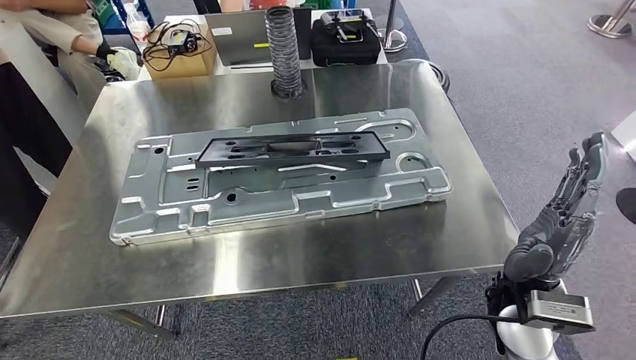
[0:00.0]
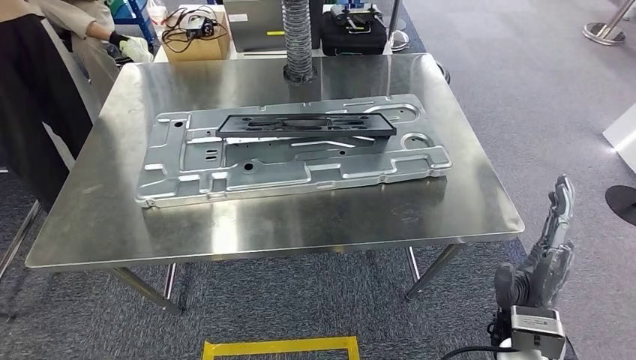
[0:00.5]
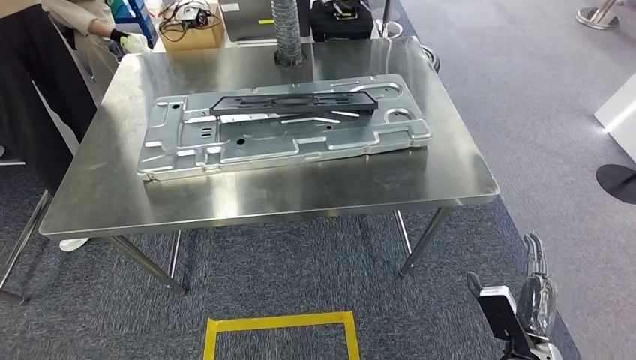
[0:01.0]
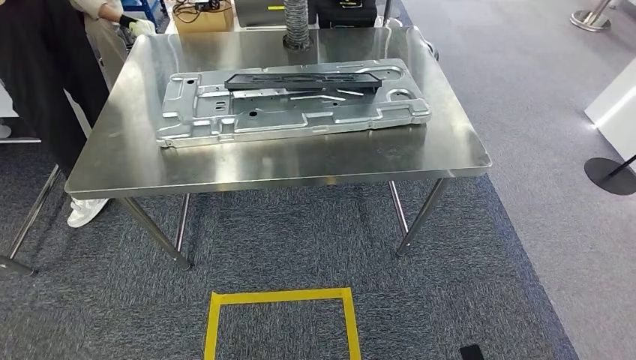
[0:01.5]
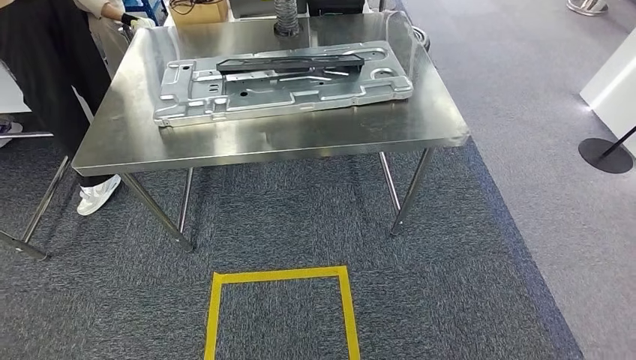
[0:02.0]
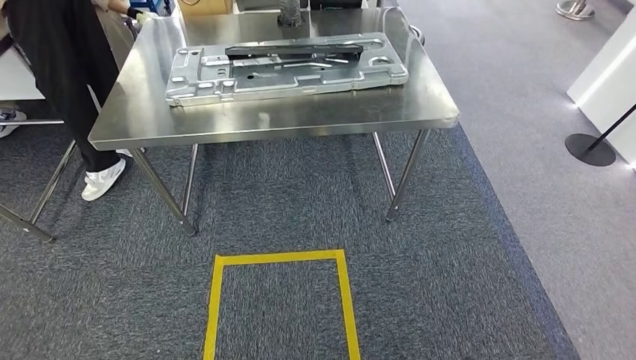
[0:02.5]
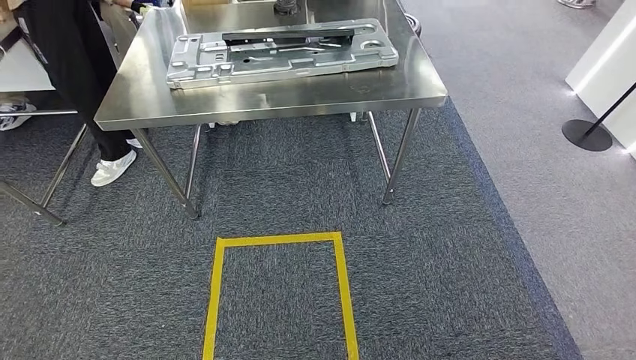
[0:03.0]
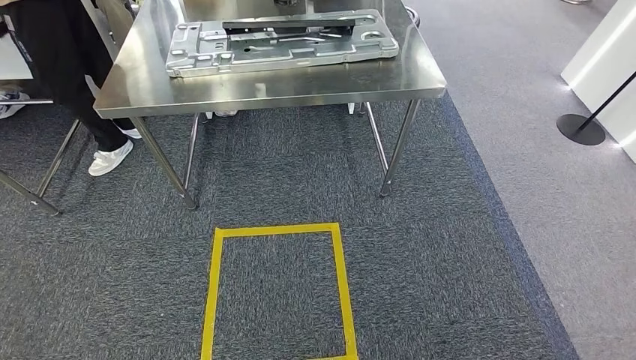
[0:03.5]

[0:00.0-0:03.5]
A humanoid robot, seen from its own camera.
Step, 0:00.5 to 0:03.5: Return to the initial position at the workbench.

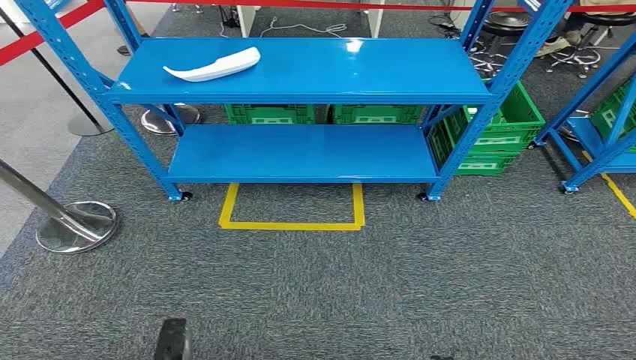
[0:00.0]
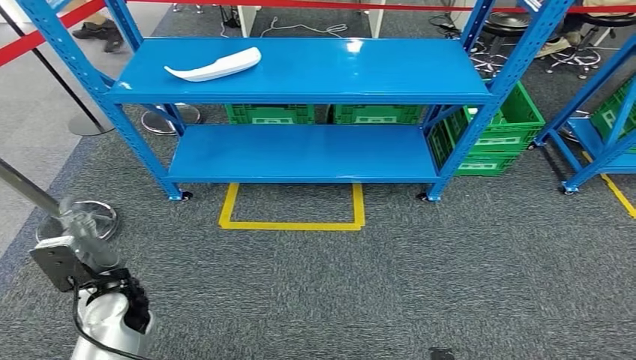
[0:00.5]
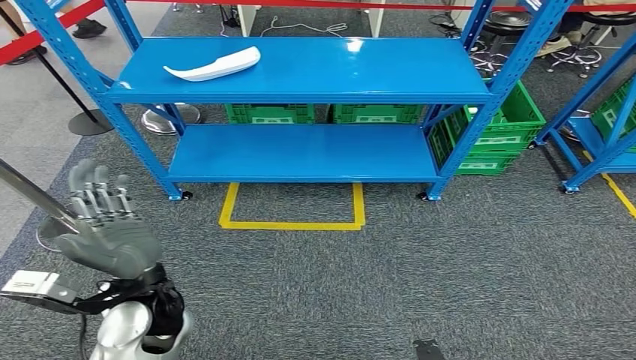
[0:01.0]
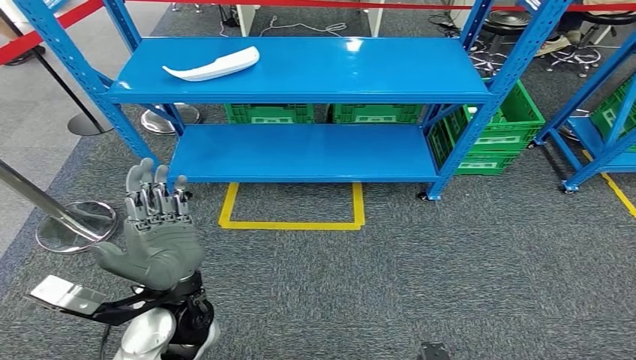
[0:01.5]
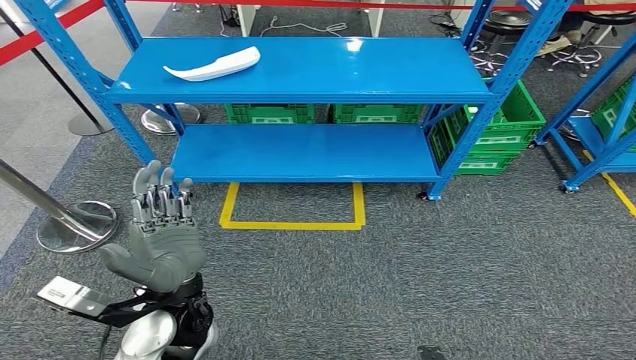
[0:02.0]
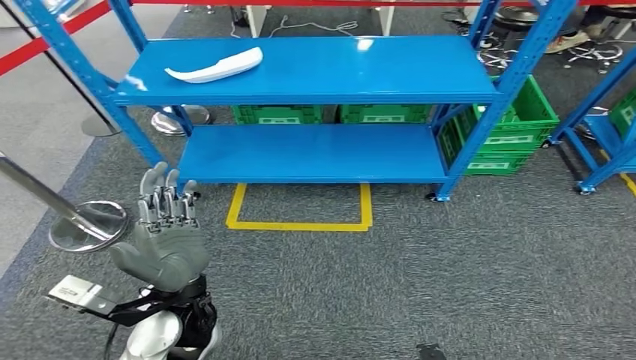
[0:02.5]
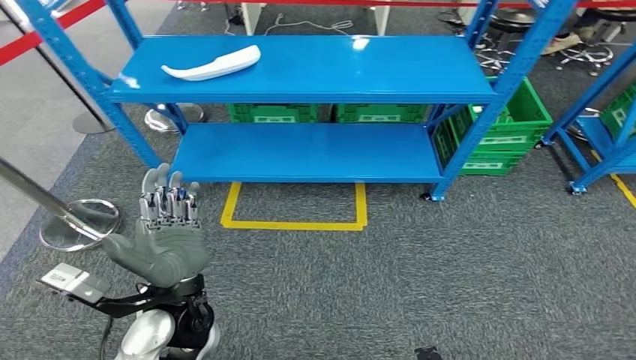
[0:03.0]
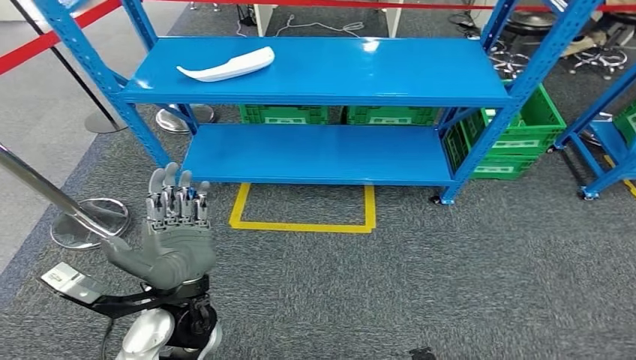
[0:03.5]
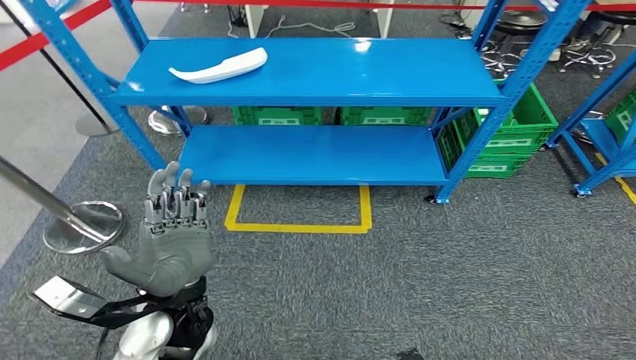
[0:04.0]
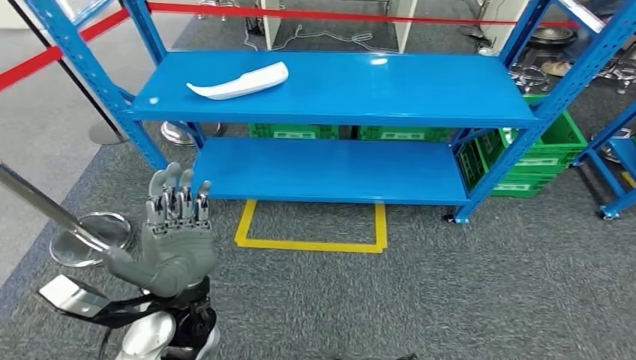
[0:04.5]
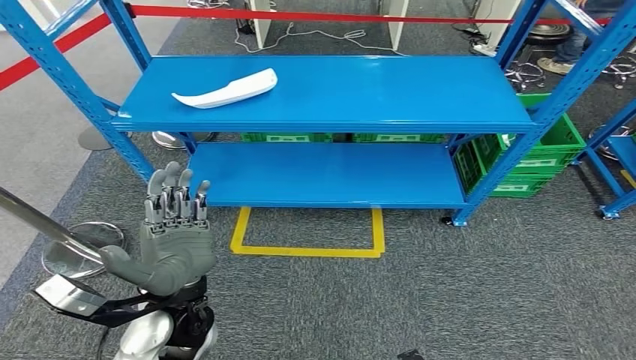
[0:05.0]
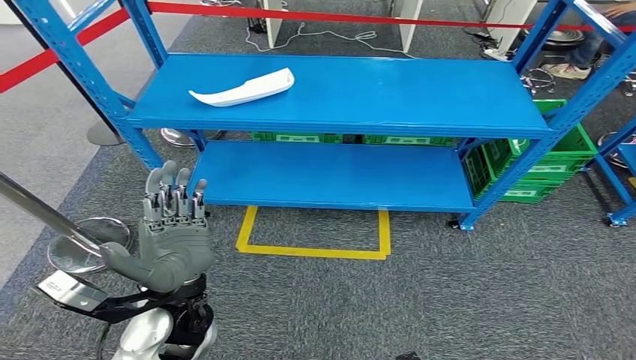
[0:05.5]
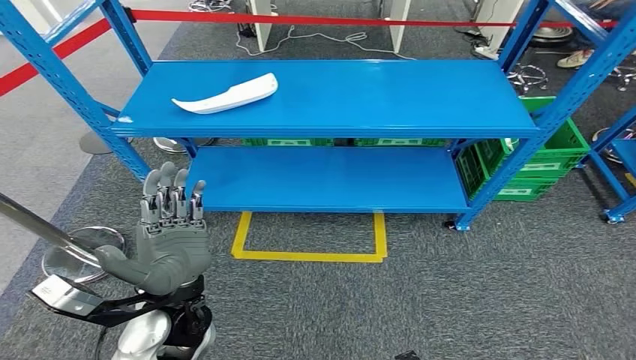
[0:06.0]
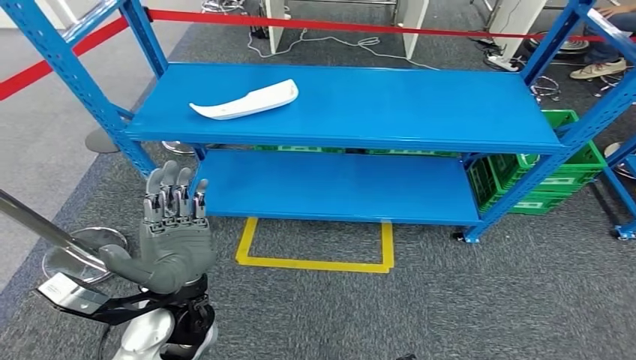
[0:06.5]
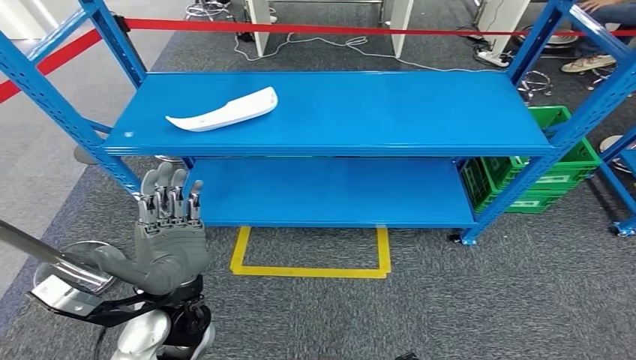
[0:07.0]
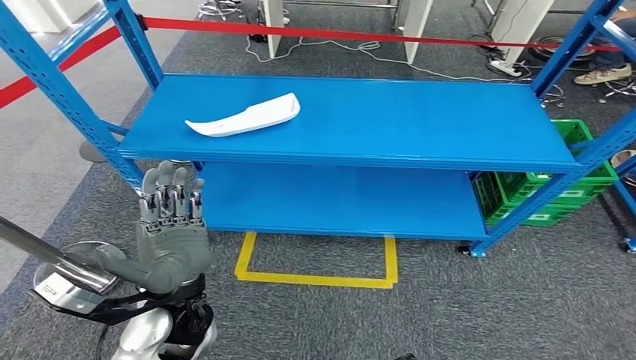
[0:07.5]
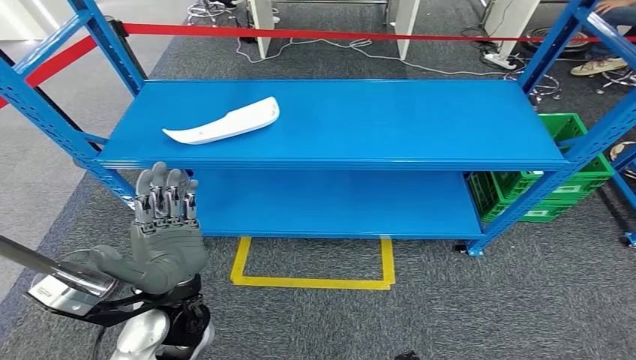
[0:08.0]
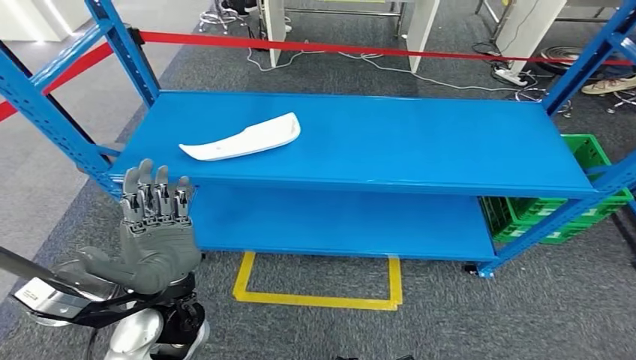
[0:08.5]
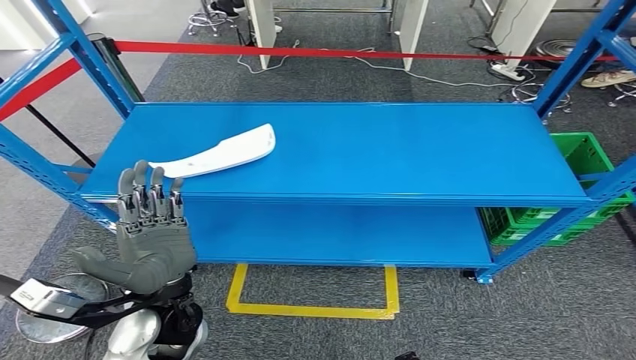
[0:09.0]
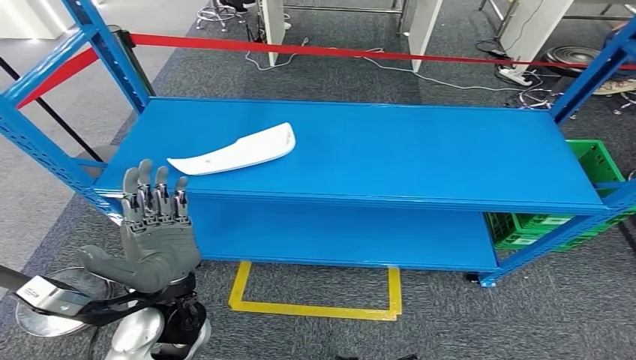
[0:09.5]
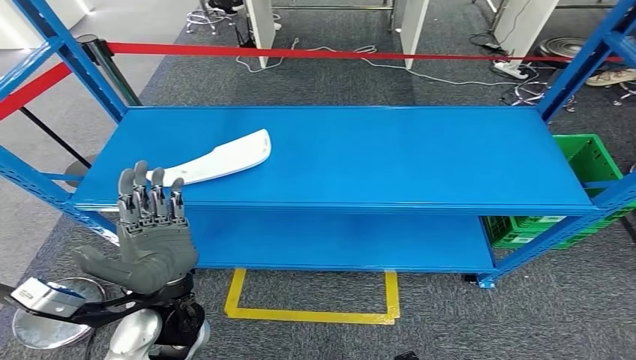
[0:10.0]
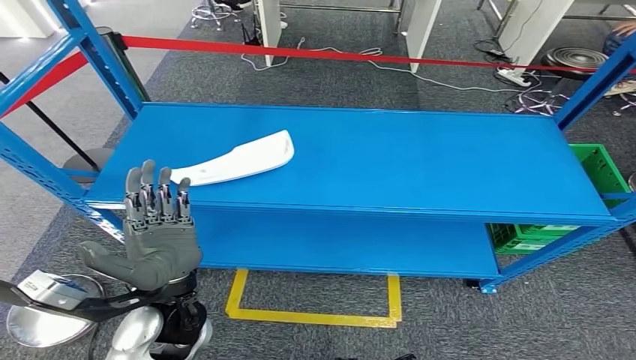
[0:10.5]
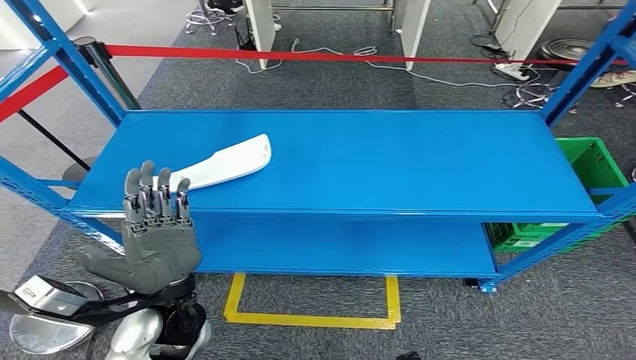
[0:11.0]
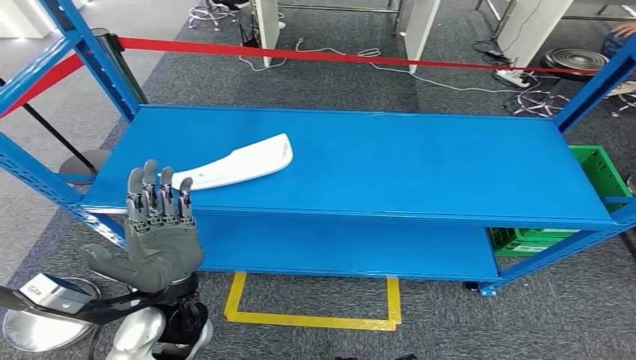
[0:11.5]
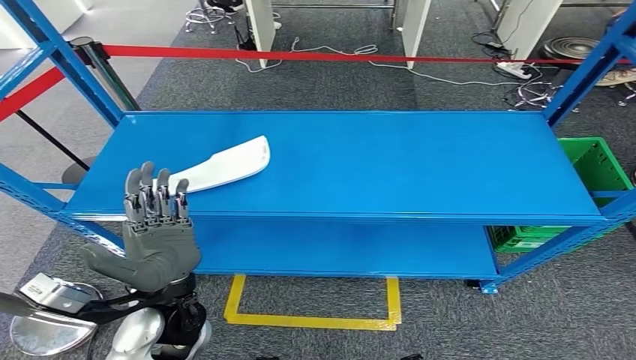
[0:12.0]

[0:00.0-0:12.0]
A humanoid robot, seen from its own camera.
0:10.0 to 0:12.0: The hands move only a little.

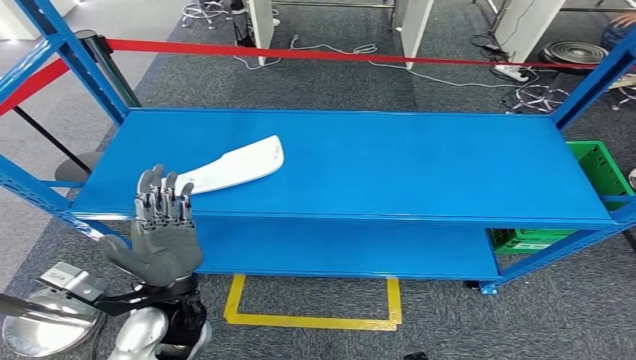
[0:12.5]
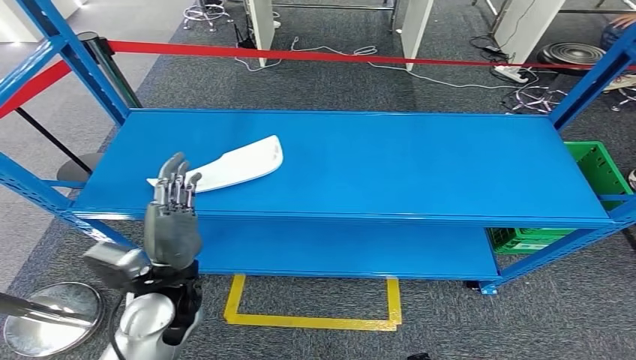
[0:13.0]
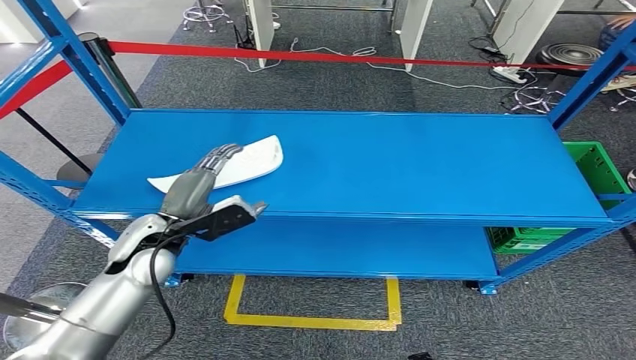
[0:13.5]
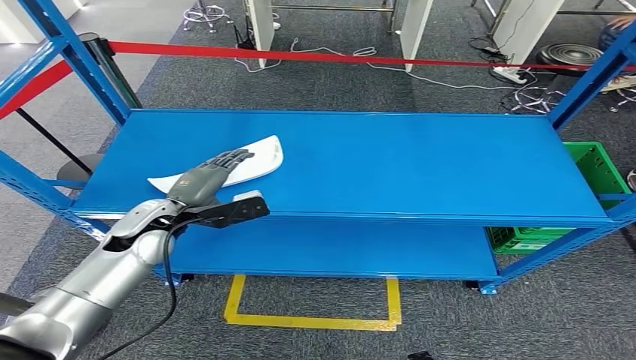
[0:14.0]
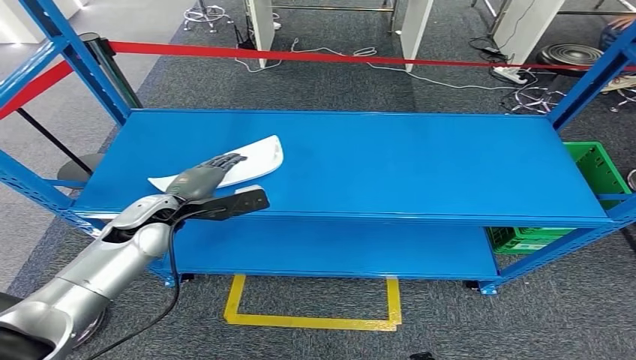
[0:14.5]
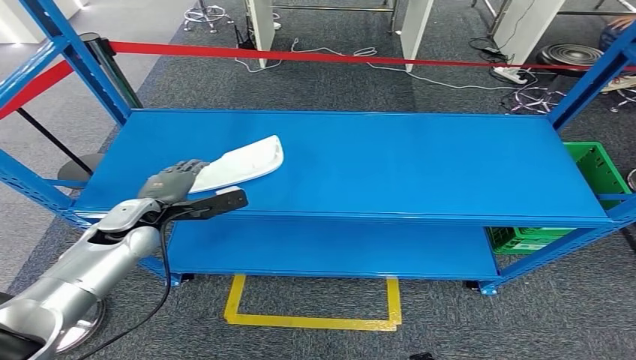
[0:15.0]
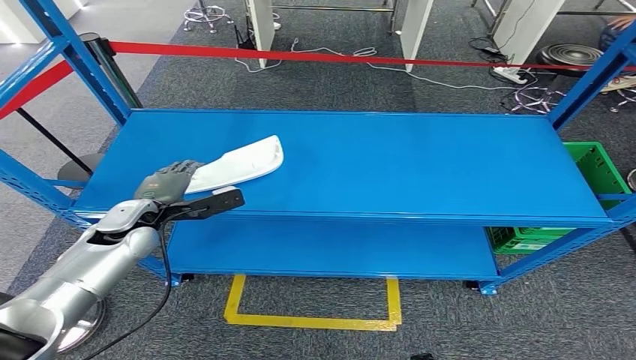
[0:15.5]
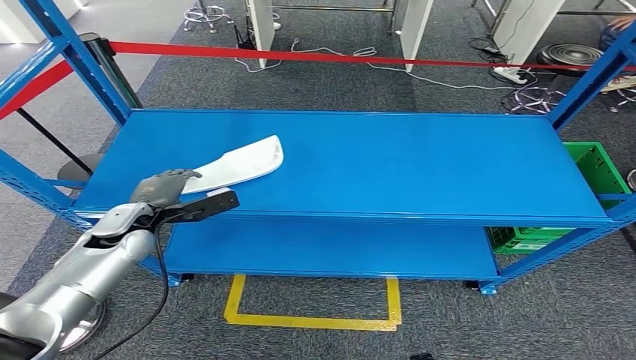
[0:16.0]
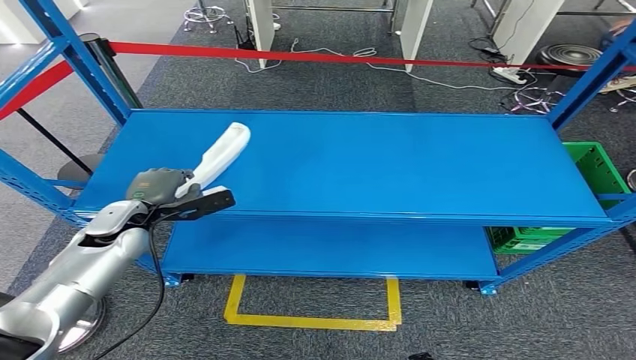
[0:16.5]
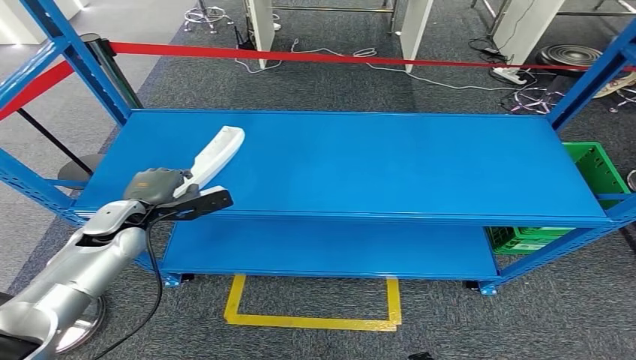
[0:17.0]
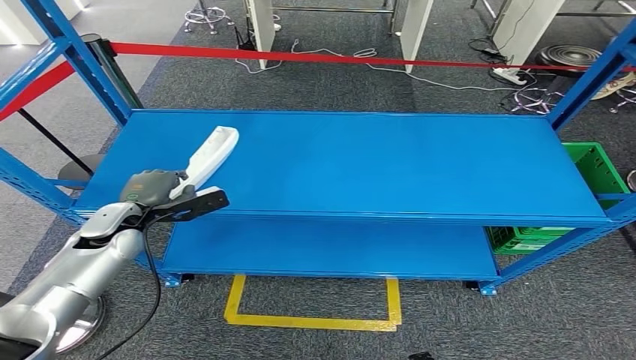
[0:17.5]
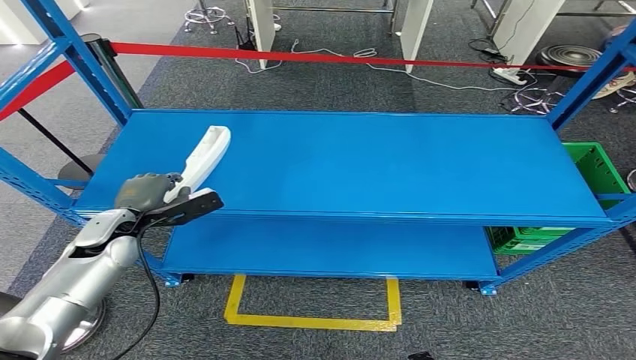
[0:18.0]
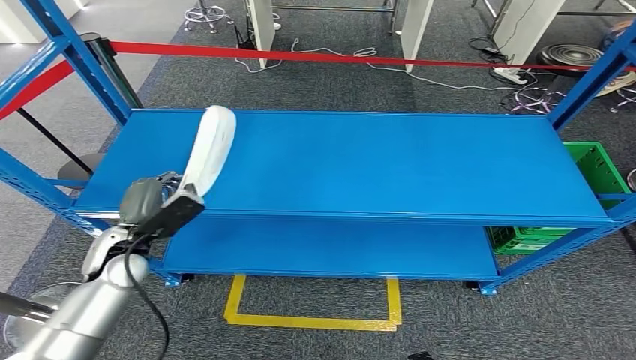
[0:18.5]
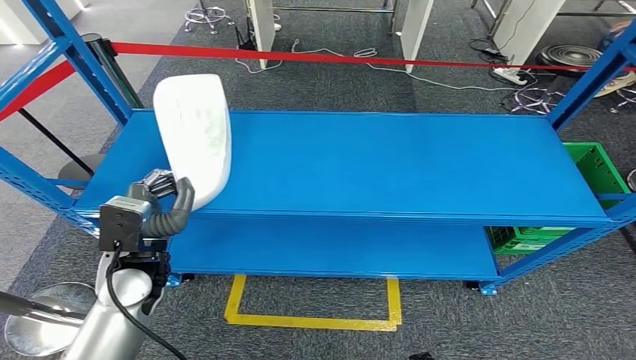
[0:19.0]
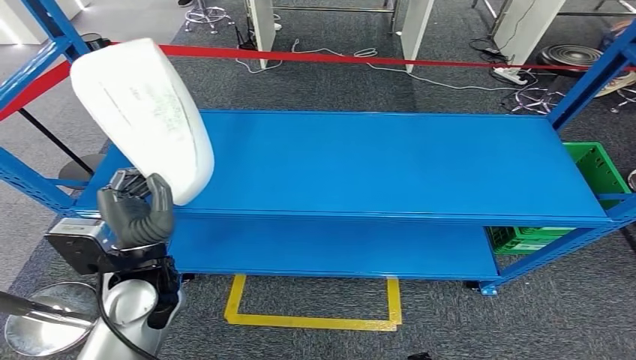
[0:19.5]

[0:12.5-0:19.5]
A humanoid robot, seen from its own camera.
Step, 0:12.5 to 0:18.5: Pick up the small component from the shelf.
0:12.5 to 0:14.5: The left hand shifts some 20 cm forward and to the left.
0:14.5 to 0:16.0: The left hand goes some 5 cm to the left.
0:16.0 to 0:17.5: The hands stay close to where they were, moving slightly.
0:17.5 to 0:19.5: The left hand moves backward, to the right and upward, about 20 cm.
